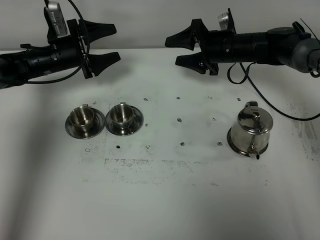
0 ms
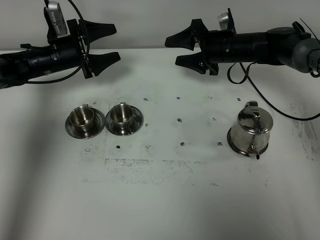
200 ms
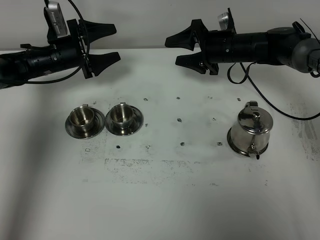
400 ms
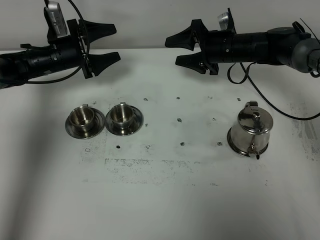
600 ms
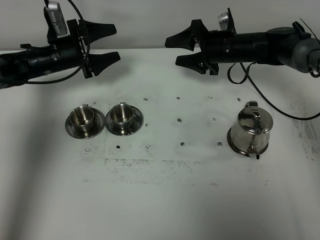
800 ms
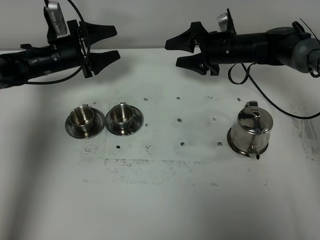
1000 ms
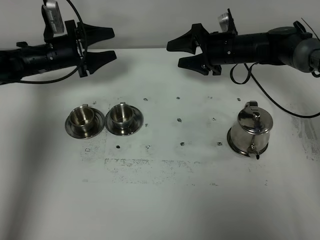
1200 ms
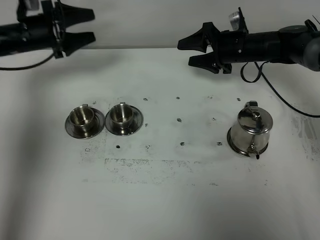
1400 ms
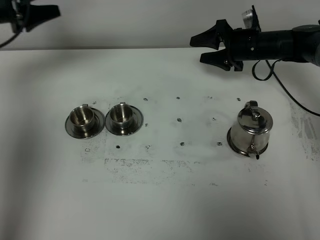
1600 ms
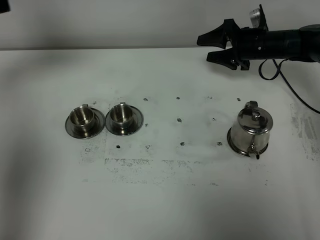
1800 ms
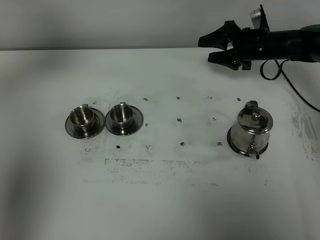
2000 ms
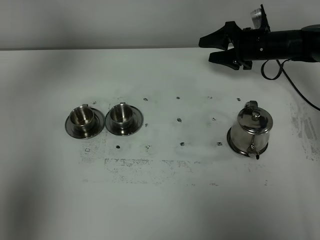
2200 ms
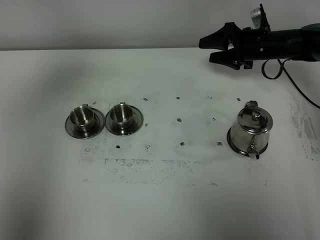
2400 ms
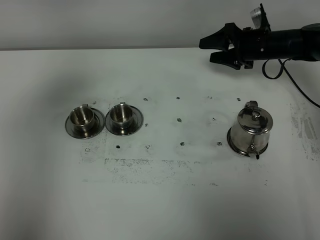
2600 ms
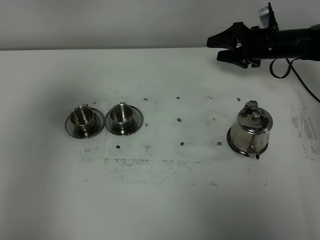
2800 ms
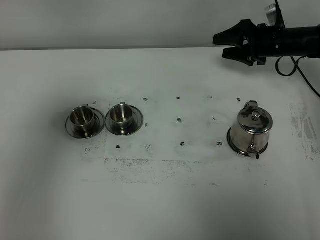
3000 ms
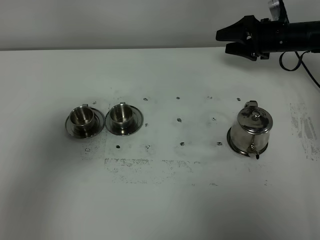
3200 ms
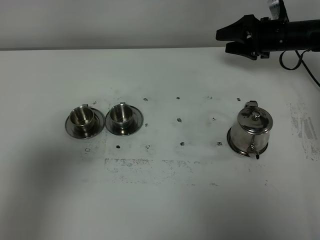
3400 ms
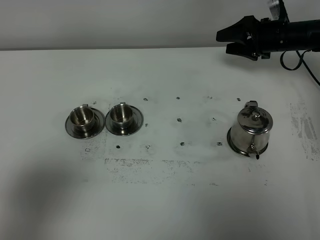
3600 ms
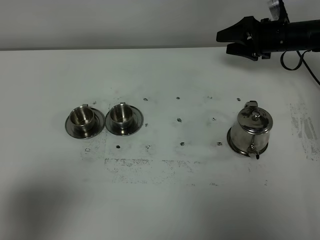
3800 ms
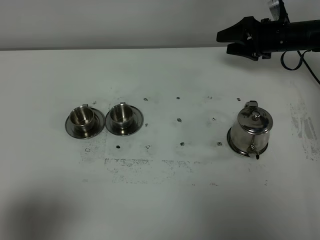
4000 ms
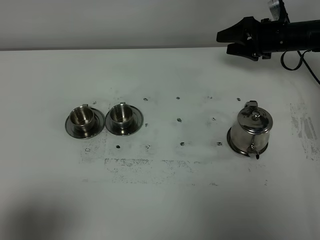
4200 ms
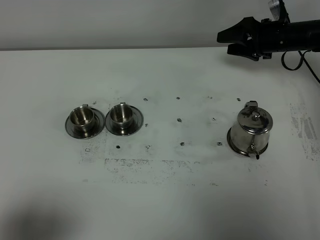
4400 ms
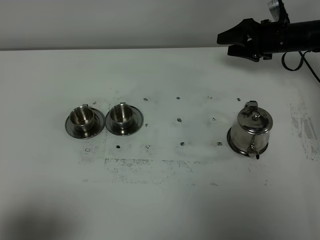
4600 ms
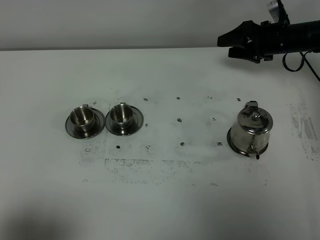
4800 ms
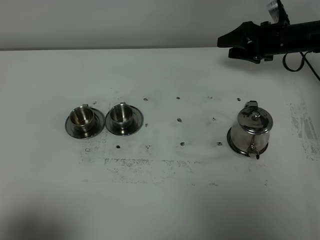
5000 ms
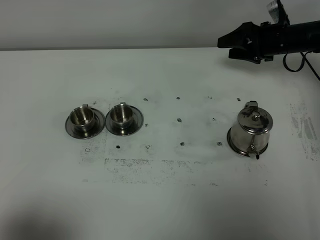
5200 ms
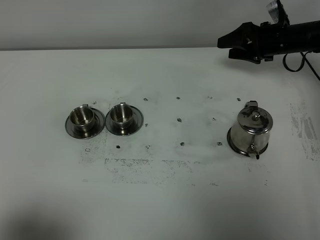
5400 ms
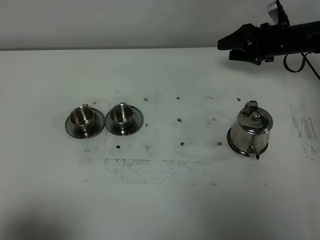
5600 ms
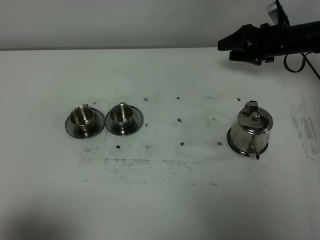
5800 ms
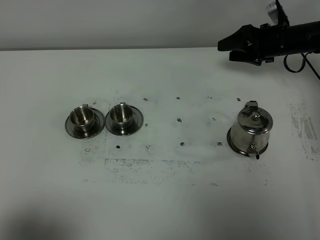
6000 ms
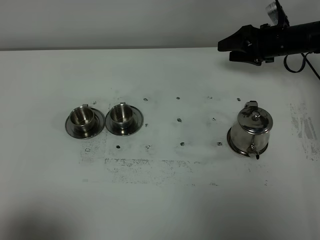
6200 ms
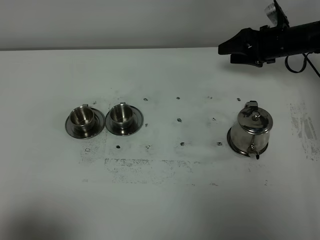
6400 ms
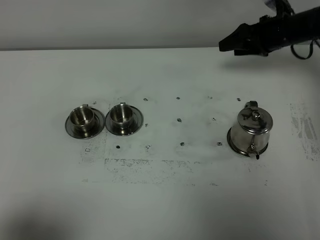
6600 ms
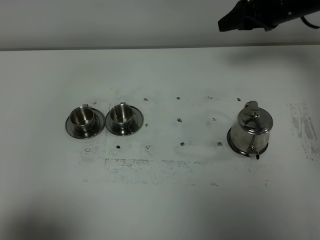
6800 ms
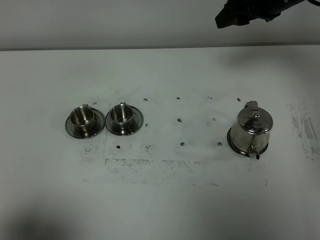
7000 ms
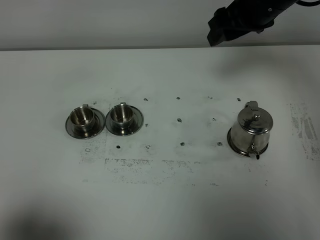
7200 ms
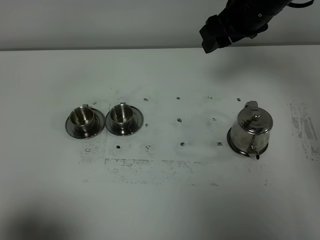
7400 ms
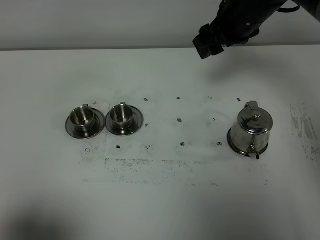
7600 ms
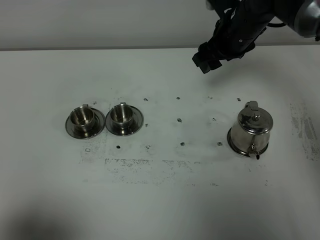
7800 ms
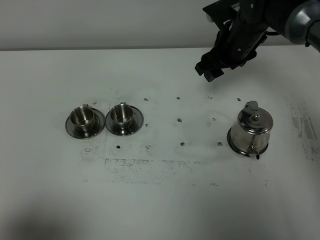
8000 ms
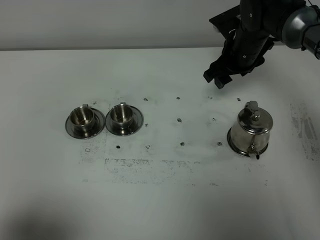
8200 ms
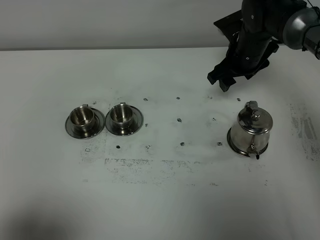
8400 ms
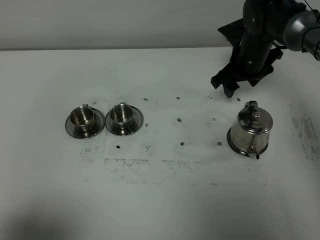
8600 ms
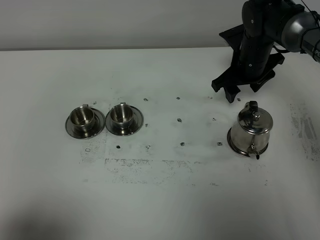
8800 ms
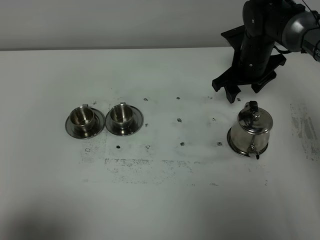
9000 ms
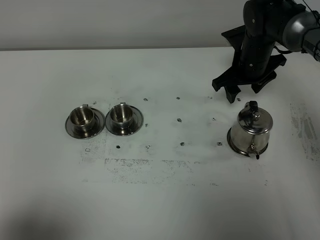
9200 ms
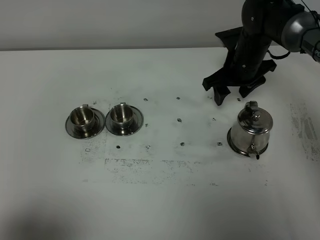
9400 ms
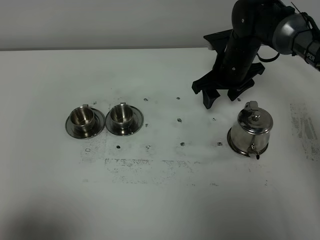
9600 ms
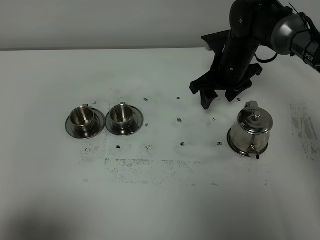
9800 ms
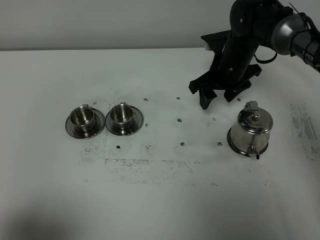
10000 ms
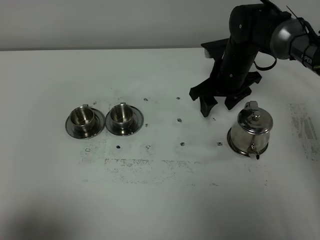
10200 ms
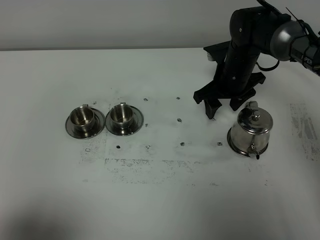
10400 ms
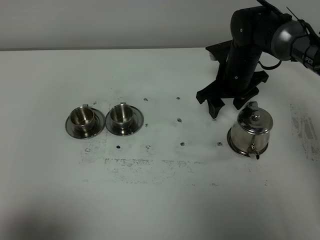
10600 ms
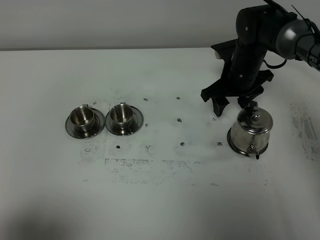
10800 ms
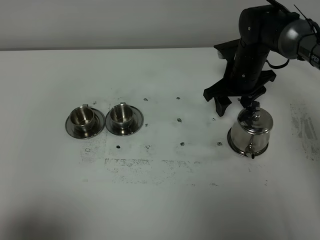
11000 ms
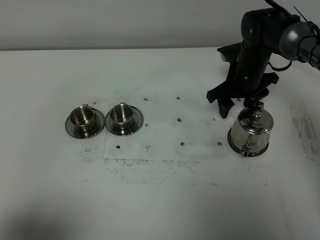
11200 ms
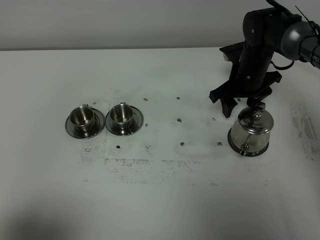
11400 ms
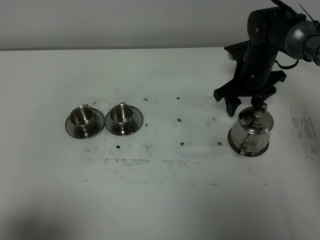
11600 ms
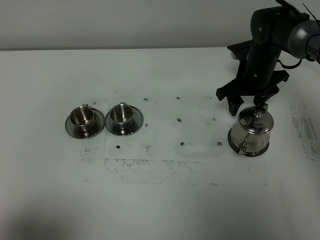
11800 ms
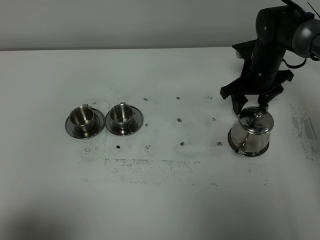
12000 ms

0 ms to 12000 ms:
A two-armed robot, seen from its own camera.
Task of the whole recording: grasp the stainless steel teapot and pour the tea into the two stainless steel teacups one by one, put the stainless steel teapot back in its original place.
0 ms to 1600 ms: The left gripper goes some 20 cm upward and to the left, while the right gripper goes about 5 cm to the right.
1600 ms to 3000 ms: The left gripper moves backward and upward, about 30 cm. The right gripper travels to the right by approximately 5 cm.
3000 ms to 4400 ms: The left gripper is displaced backward and downward by about 20 cm.
4400 ms to 6000 ms: There are only small adjustments of the grippers.
6000 ms to 7600 ms: The right gripper is displaced to the left, upward and backward by about 20 cm.
7600 ms to 9000 ms: The right gripper is displaced downward by some 10 cm.
9000 ms to 10400 ms: The grippers move only a little.
10400 ms to 12000 ms: The right gripper heads to the right, covering about 5 cm.

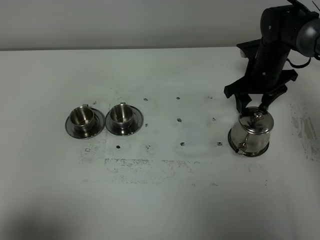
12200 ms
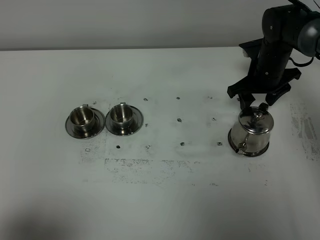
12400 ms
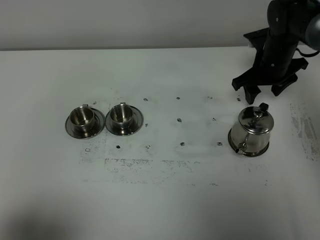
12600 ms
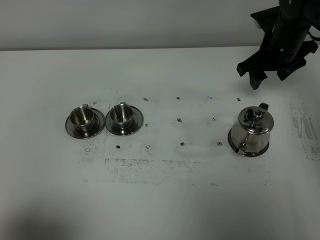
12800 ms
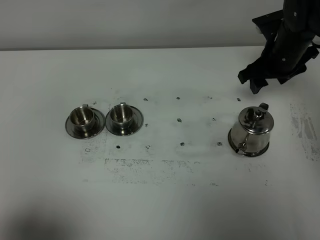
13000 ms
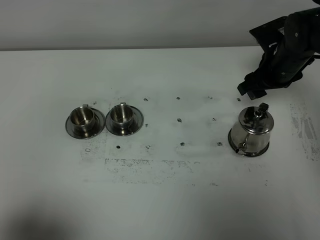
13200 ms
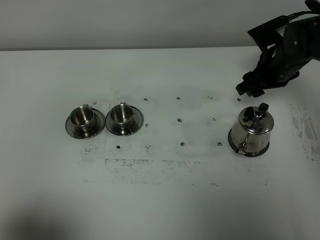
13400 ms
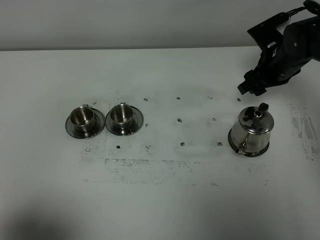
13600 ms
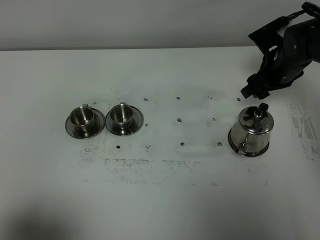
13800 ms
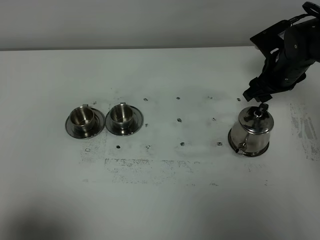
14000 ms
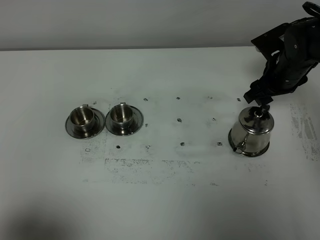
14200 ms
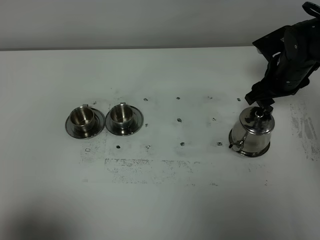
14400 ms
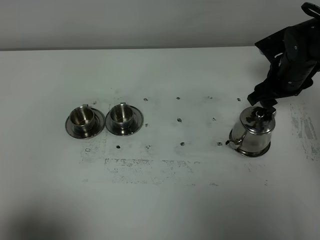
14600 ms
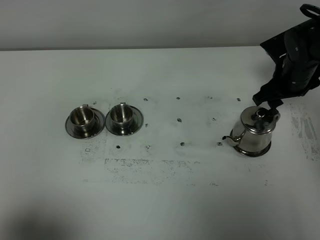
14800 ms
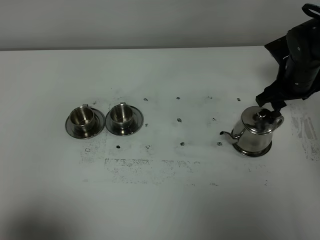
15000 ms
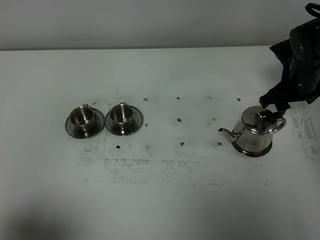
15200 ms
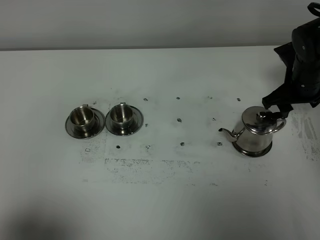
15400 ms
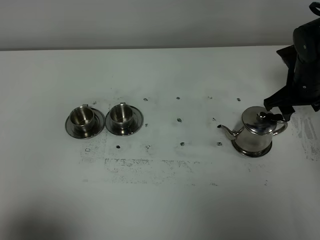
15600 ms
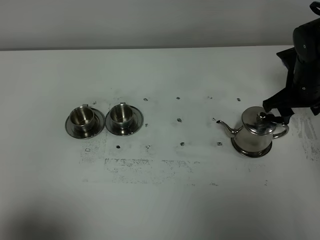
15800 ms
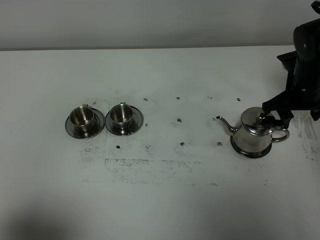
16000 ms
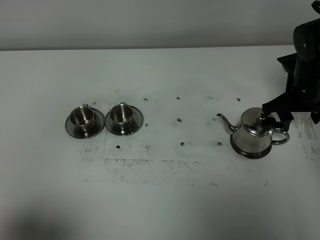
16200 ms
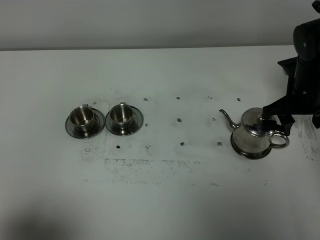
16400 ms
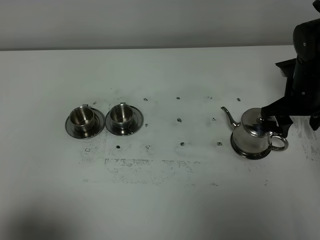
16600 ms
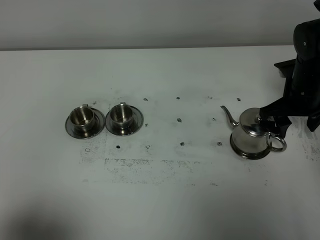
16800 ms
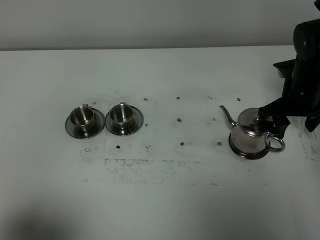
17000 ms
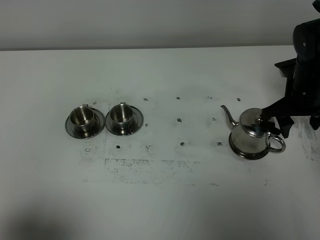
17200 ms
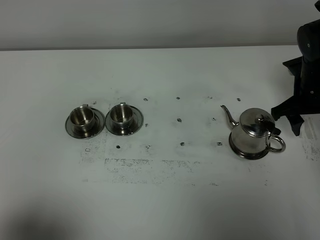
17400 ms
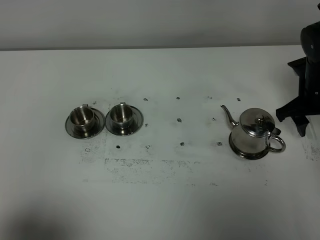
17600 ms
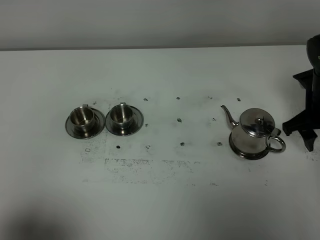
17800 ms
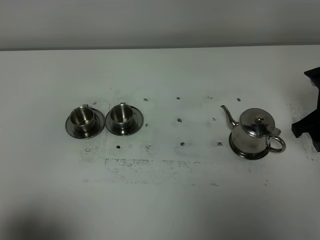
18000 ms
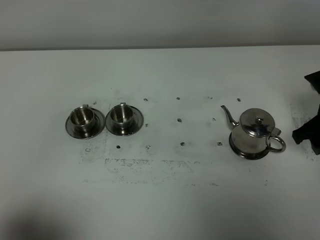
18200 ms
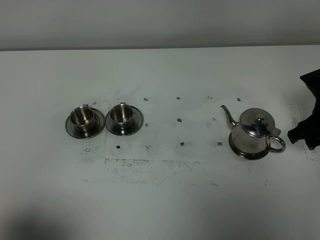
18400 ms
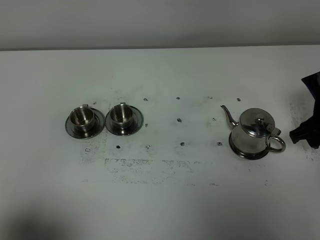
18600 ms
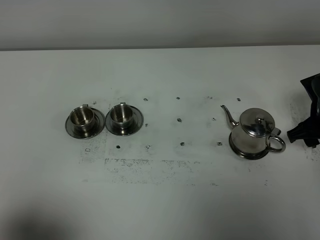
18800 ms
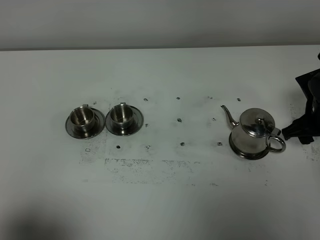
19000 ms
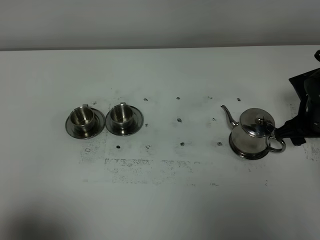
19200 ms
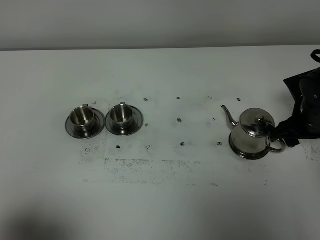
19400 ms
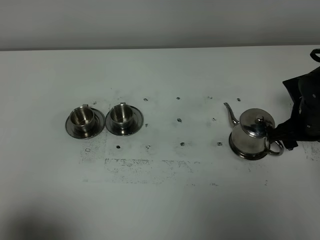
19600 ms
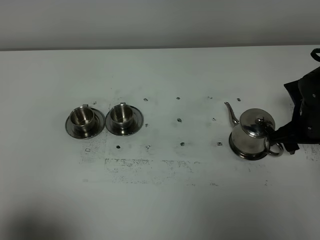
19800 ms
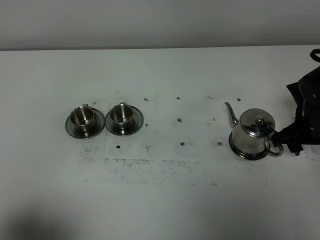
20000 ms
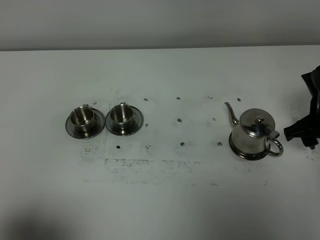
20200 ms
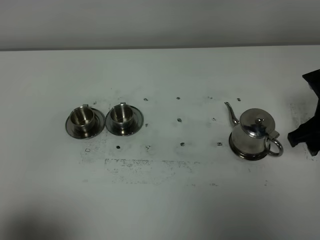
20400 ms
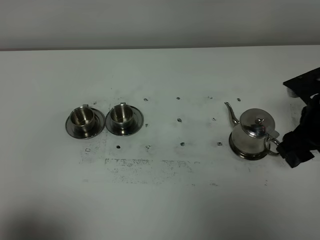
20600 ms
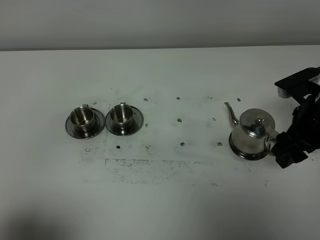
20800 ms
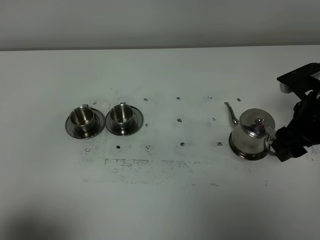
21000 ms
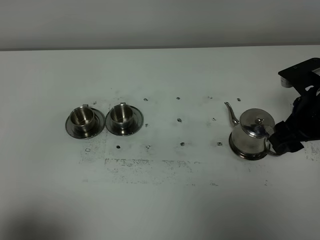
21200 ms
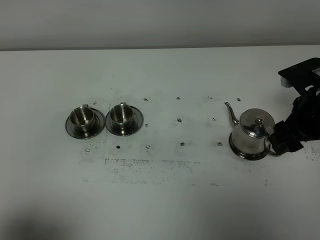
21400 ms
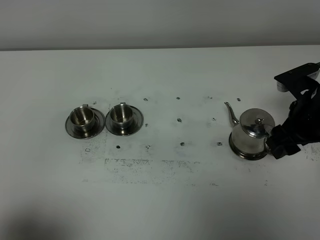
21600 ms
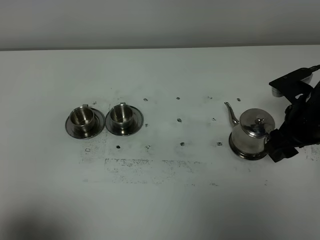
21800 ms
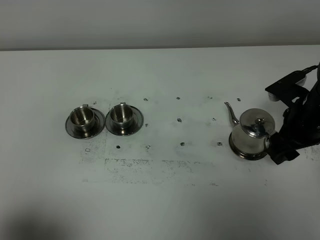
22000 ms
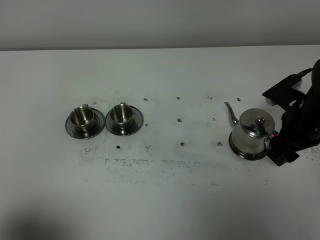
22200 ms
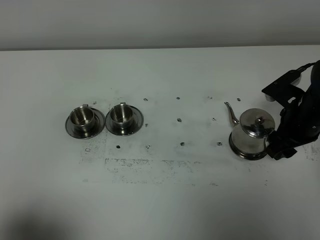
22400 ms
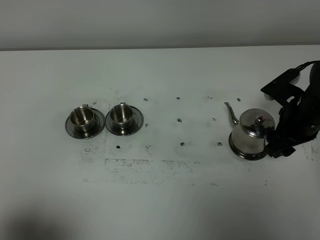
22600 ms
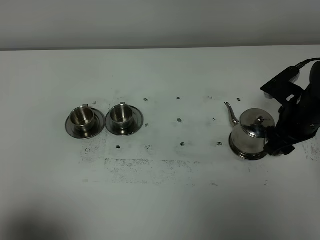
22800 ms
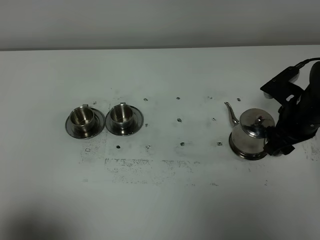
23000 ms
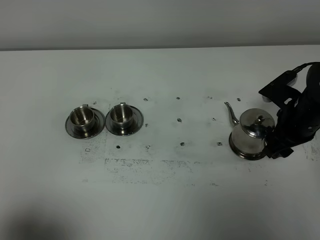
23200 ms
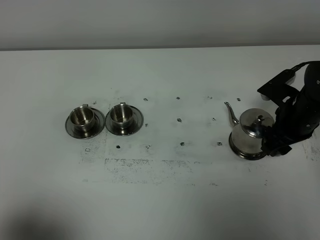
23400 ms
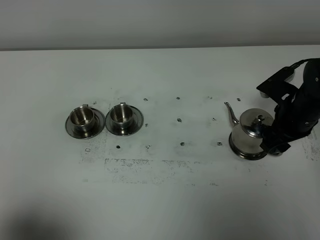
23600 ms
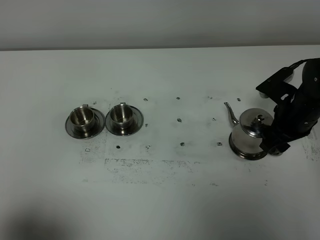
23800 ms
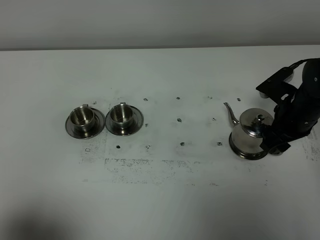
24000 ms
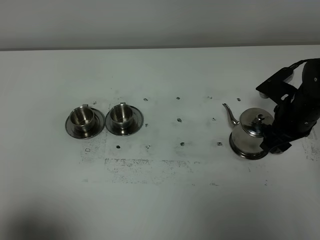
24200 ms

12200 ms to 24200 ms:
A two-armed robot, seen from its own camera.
Task of the whole recording: grasp the stainless steel teapot and pour the tea into the two stainless steel teacups one by one, put the stainless steel teapot back in its original place.
13800 ms to 15200 ms: There are only small adjustments of the grippers.
15200 ms to 16600 ms: There are only small adjustments of the grippers.
16600 ms to 18200 ms: The right gripper heads backward, covering roughly 5 cm.
18200 ms to 19800 ms: The right gripper shifts roughly 5 cm downward.
19800 ms to 21200 ms: The right gripper heads upward, covering about 10 cm.
21200 ms to 22600 ms: The right gripper is displaced downward by approximately 5 cm.
22600 ms to 24200 ms: The grippers make only small movements.
